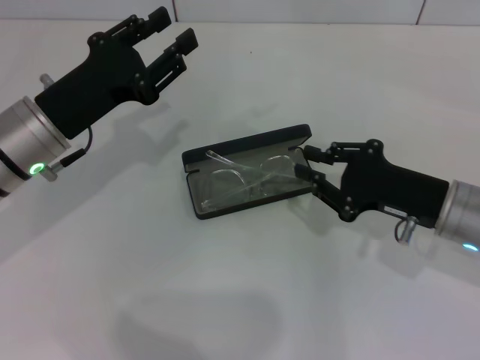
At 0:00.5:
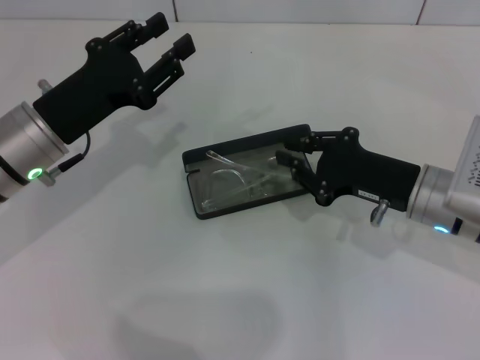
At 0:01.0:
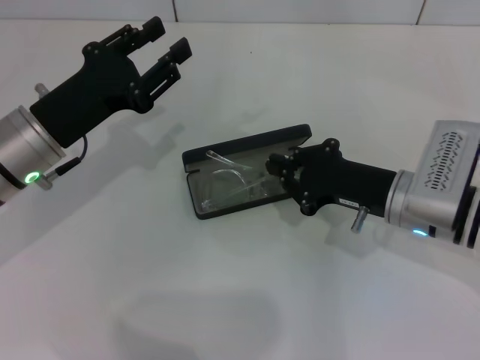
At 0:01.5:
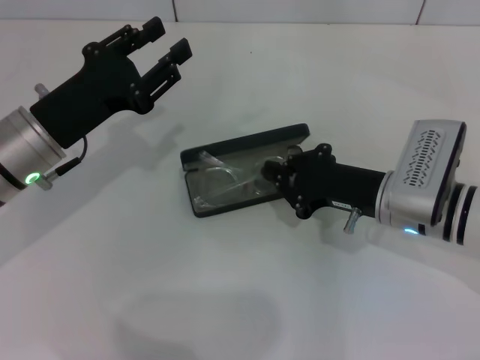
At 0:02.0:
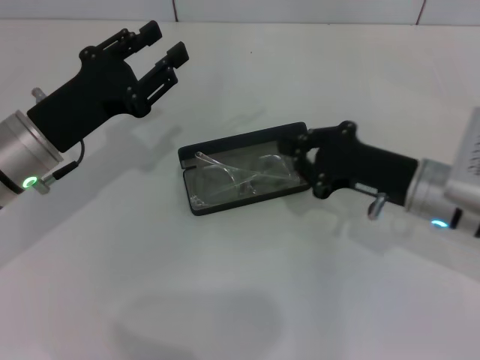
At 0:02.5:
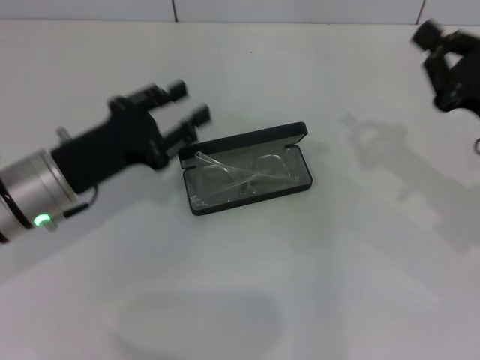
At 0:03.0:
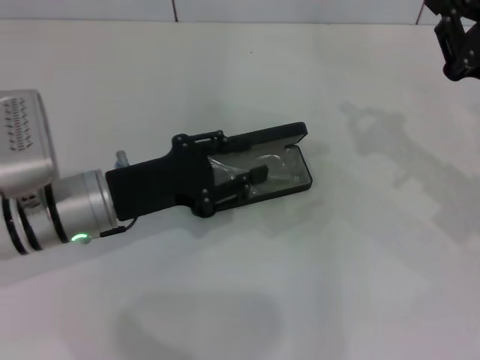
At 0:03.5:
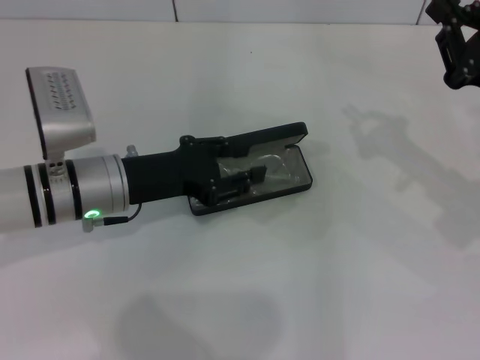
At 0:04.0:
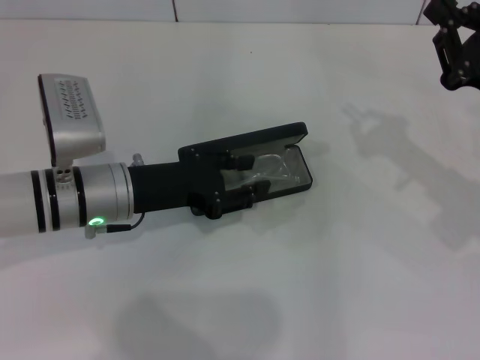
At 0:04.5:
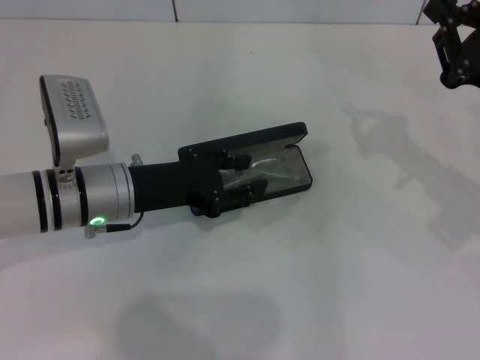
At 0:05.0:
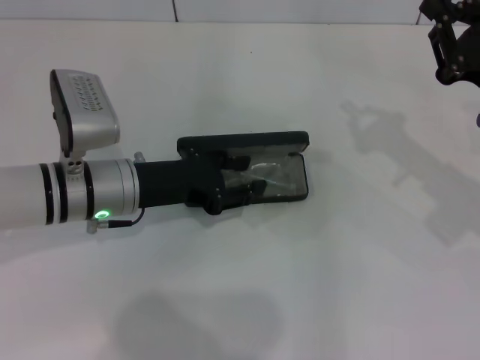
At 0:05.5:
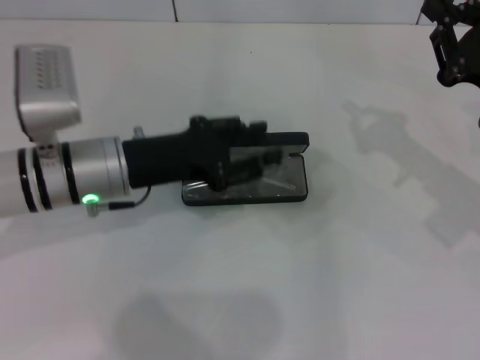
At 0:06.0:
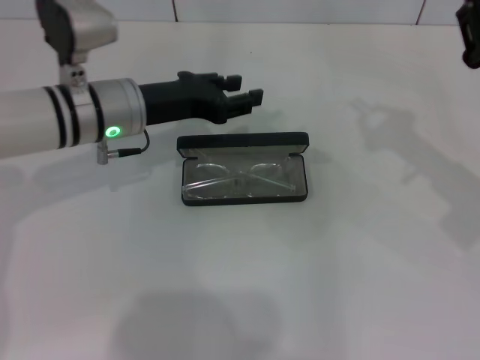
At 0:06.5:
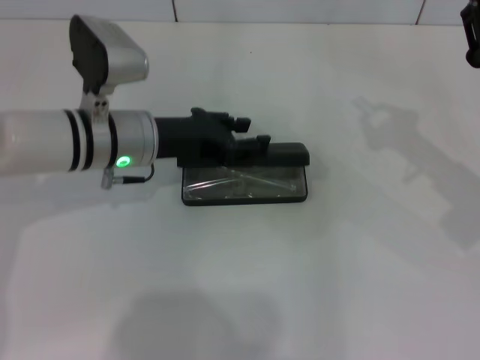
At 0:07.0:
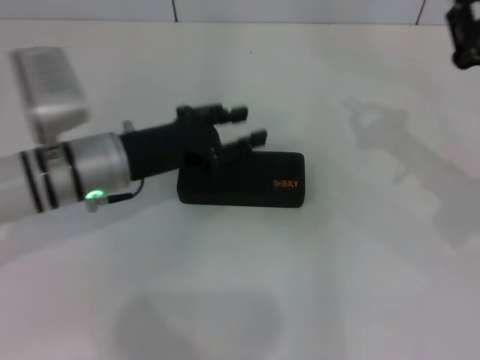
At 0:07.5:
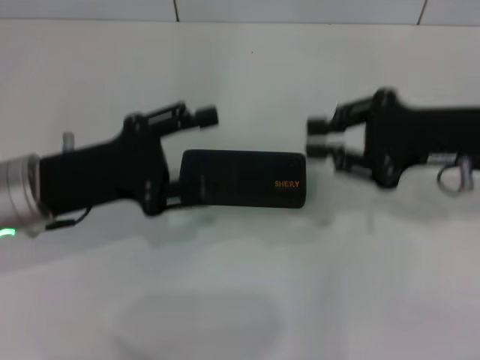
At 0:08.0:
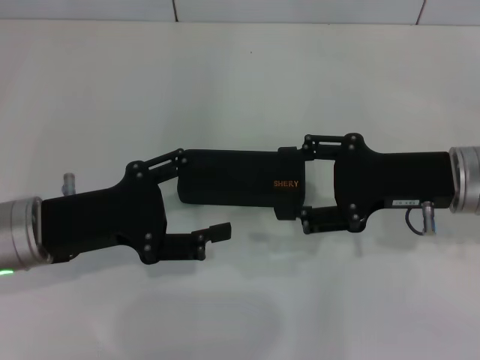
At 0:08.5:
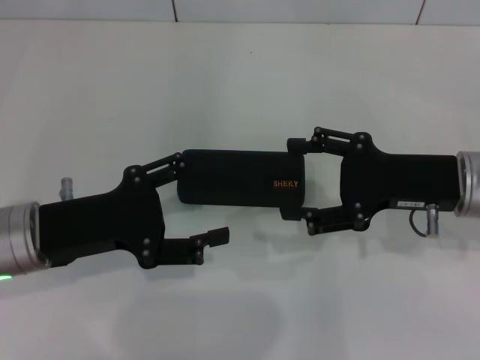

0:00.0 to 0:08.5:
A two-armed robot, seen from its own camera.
Step, 0:02.0 to 0:06.5: Close the glasses case with your left hand.
0:00.0 to 0:02.0: The grippers make only small movements.
0:02.0 to 0:04.0: The right gripper travels to the right by some 10 cm; the left gripper moves to the right, roughly 5 cm.
0:04.0 to 0:06.5: The left gripper heads forward, covering approximately 5 cm.
0:06.5 to 0:08.5: The right gripper shifts about 5 cm to the left, and opens. The left gripper is displaced backward and to the left by some 15 cm, and opens up.
